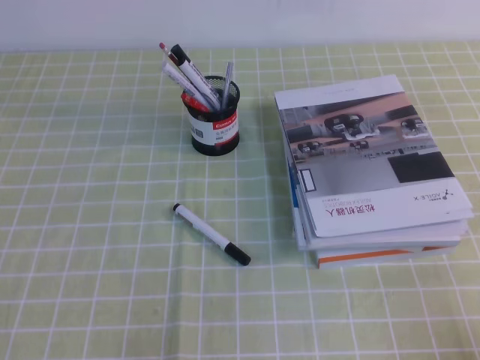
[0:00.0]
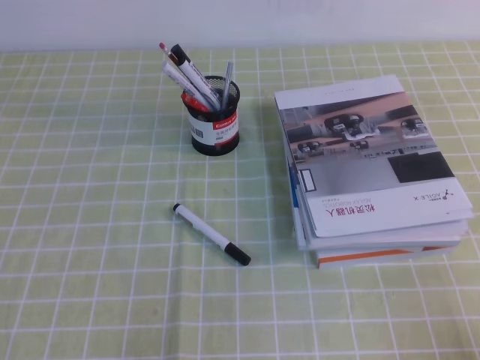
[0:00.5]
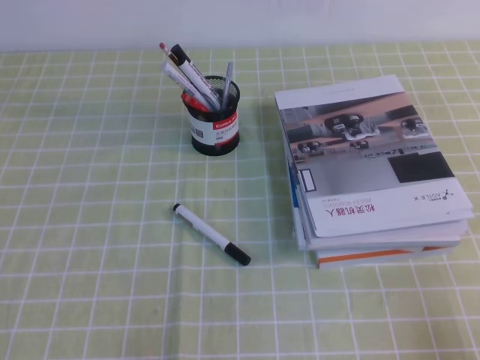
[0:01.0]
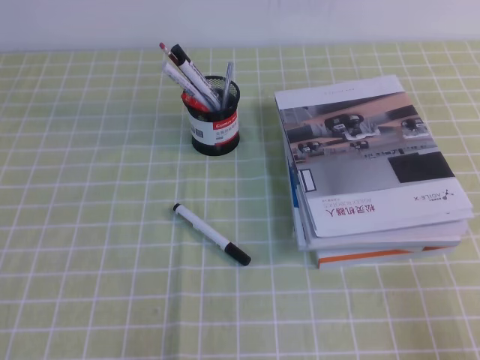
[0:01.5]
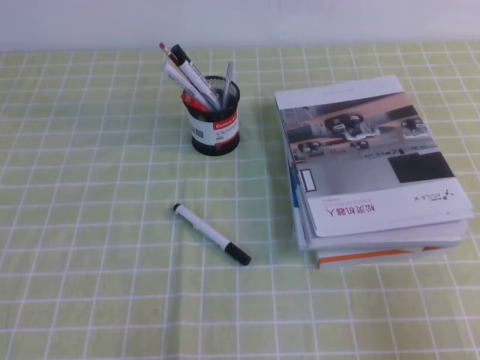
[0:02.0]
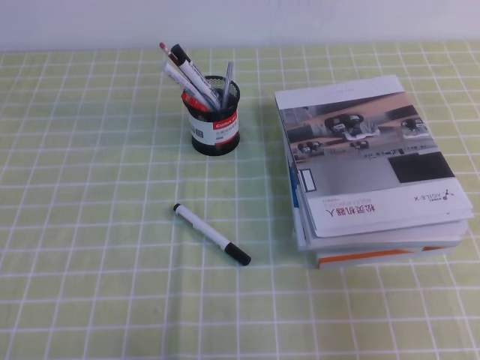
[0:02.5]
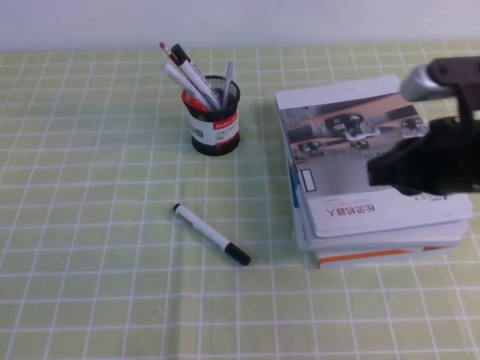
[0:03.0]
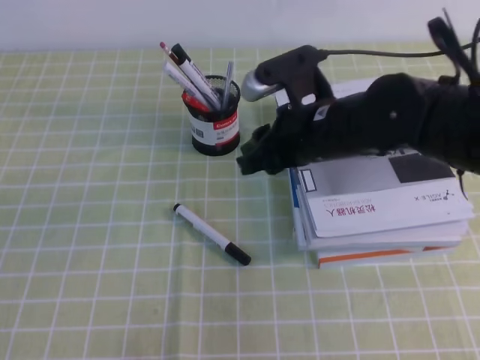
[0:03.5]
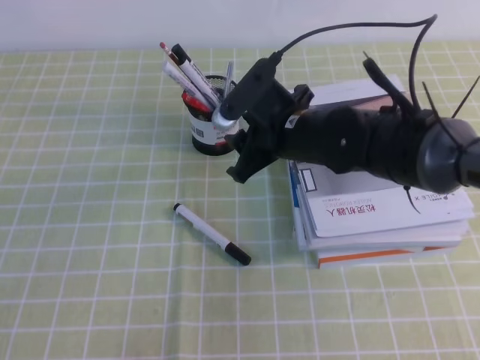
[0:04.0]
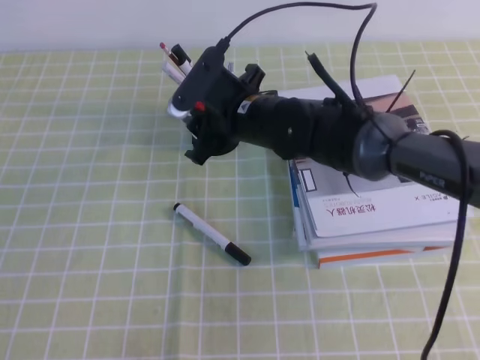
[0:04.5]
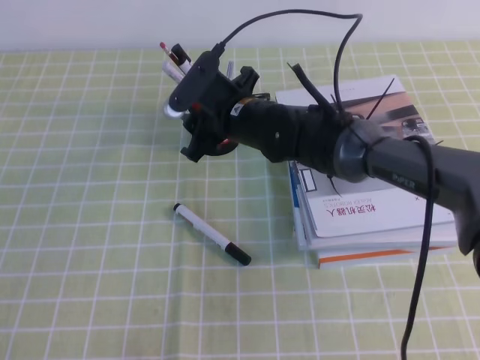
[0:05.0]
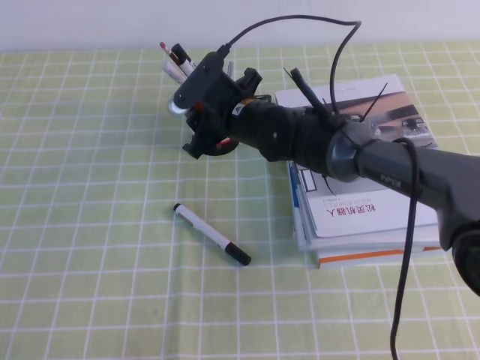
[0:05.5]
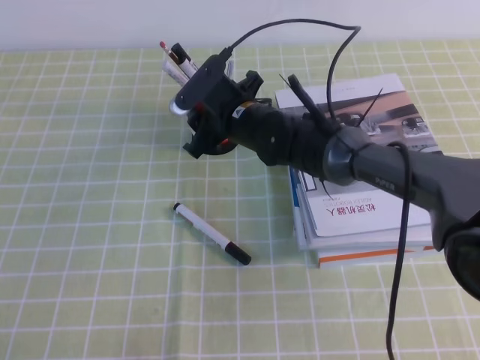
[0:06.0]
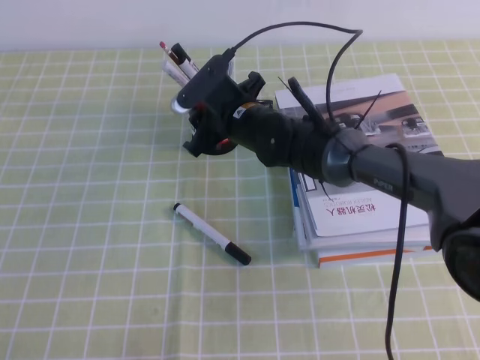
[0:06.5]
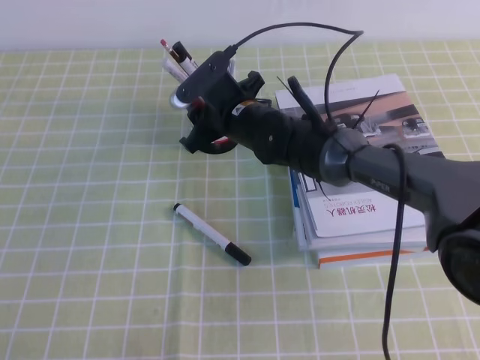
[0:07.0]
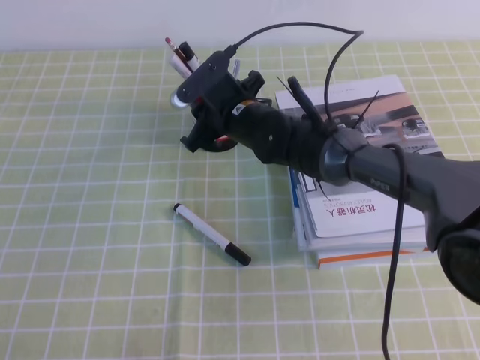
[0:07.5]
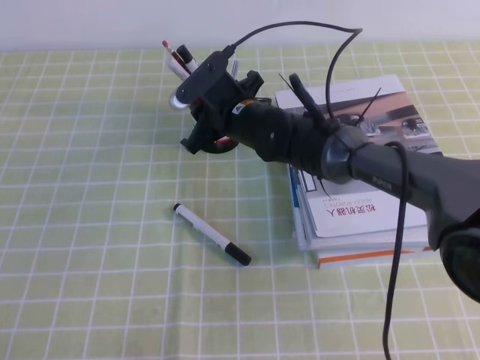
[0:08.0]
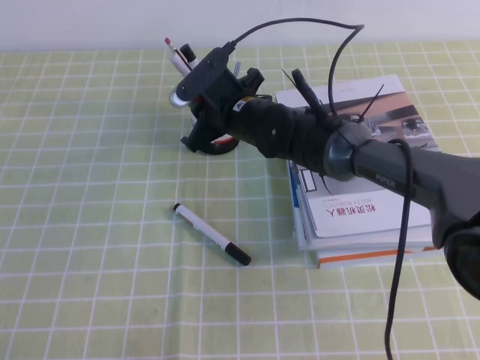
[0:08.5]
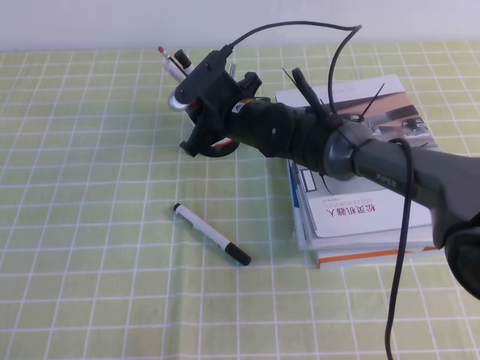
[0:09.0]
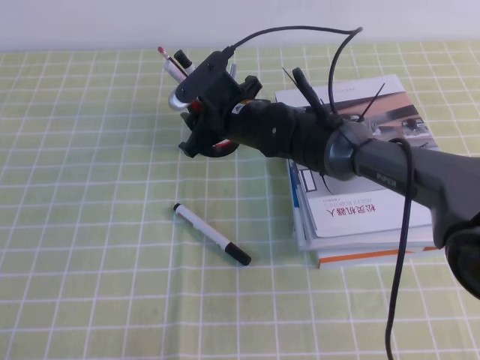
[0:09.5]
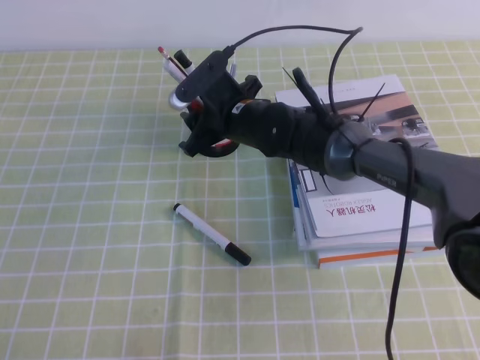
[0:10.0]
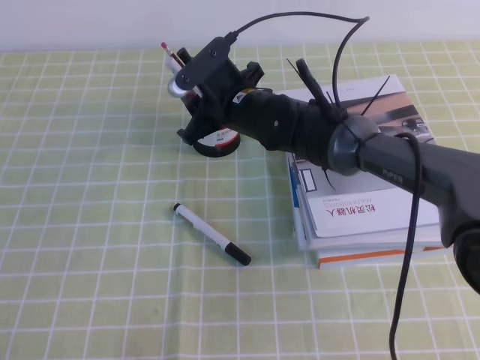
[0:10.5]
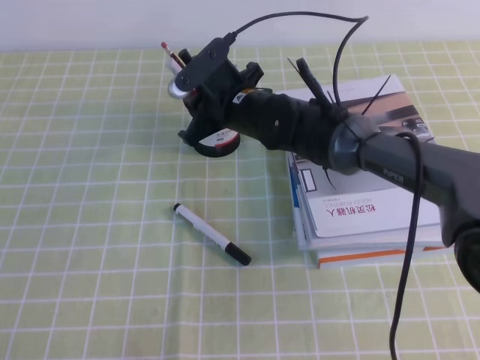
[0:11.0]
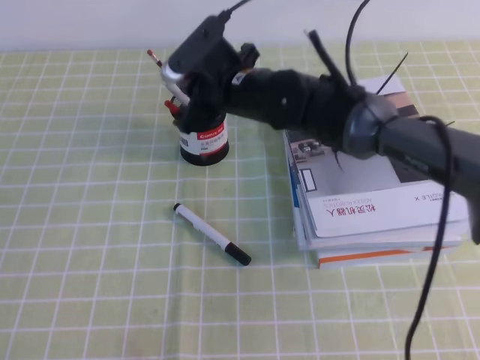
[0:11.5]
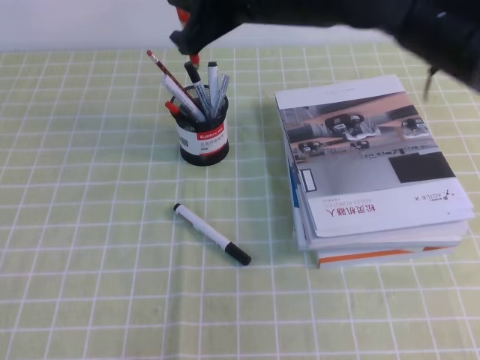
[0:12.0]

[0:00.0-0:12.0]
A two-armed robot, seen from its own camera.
0:00.0 to 0:02.0: The right gripper shifts some 5 cm upward.
0:02.0 to 0:04.0: The right gripper goes roughly 40 cm forward and to the left, and opens its fingers.
0:04.0 to 0:06.0: The right gripper moves forward and to the left, some 10 cm.
0:06.0 to 0:08.0: The right gripper closes up.
0:08.0 to 0:10.0: The right gripper opens its fingers.
0:10.0 to 0:12.0: The right gripper heads upward and backward, covering roughly 20 cm, and closes its fingers.

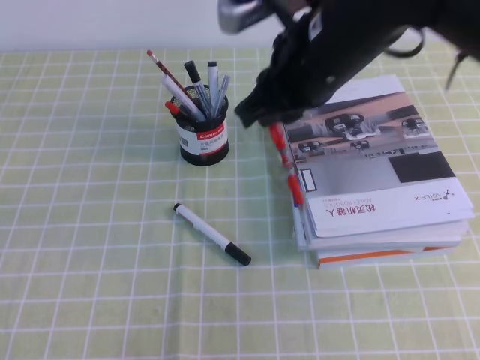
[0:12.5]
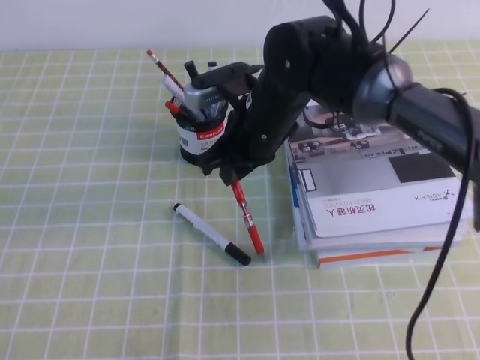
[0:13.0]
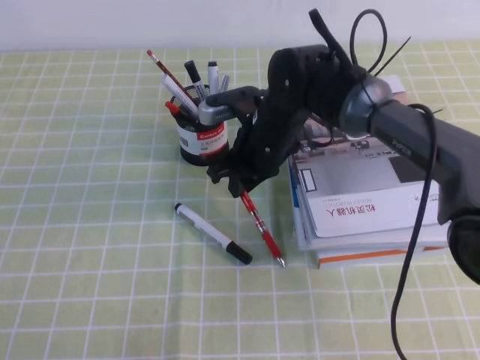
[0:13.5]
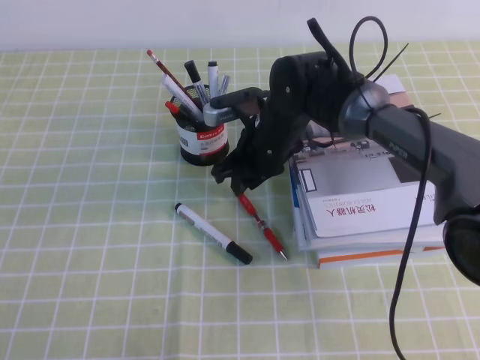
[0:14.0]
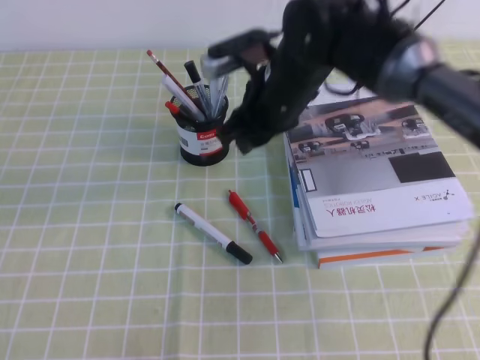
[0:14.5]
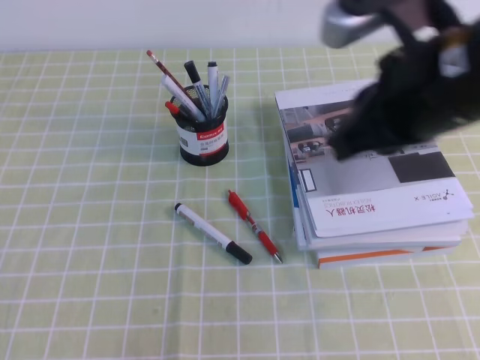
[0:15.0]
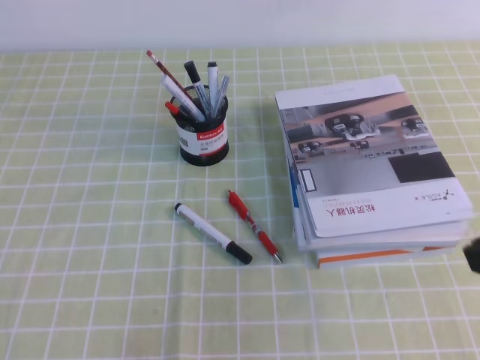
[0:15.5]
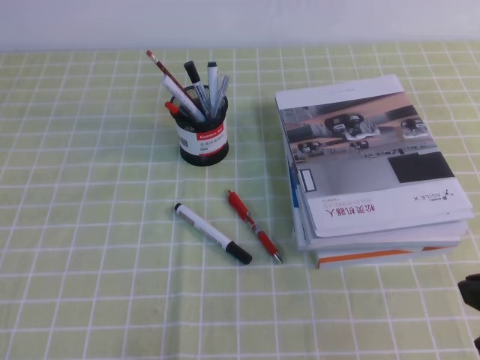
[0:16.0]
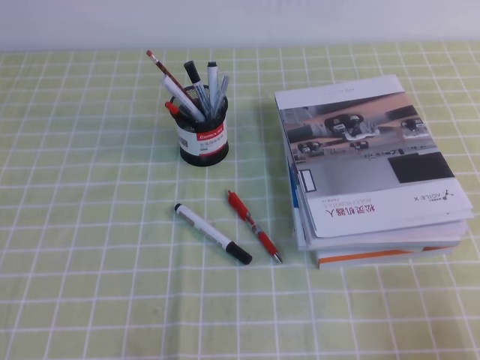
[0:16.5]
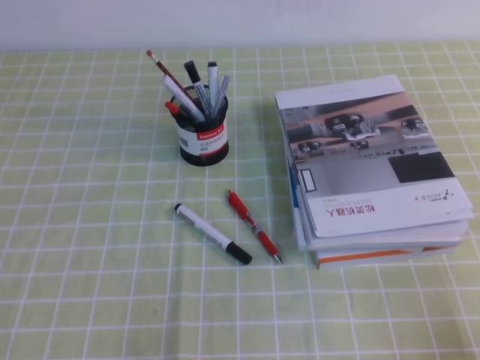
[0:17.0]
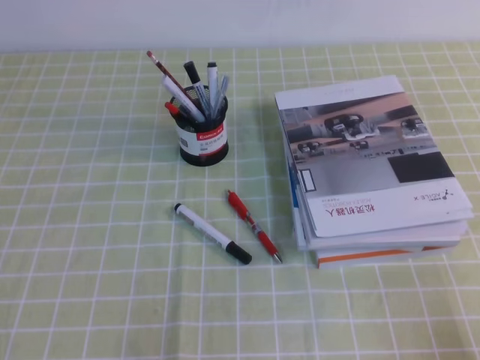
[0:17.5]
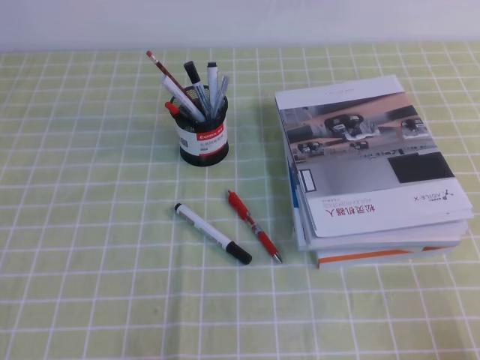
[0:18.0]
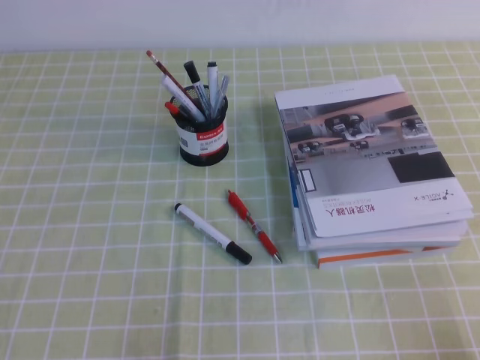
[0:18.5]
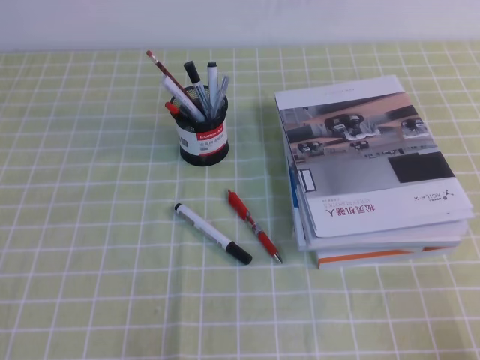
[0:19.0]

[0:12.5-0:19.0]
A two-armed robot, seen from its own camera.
Step, 0:12.5 to 0:19.0: Pick up the pen from the pen holder.
0:12.5 to 0:14.5: The right gripper shifts about 10 cm downward and forward, and opens up.
0:14.5 to 0:17.0: The right gripper shifts roughly 40 cm backward and to the right, and closes its fingers.

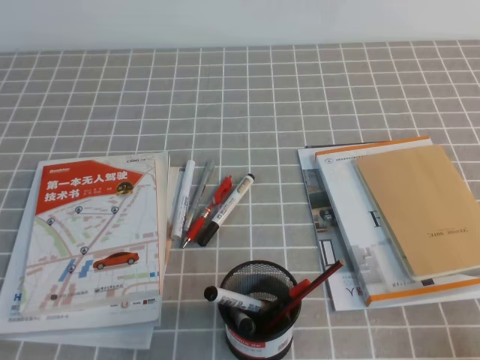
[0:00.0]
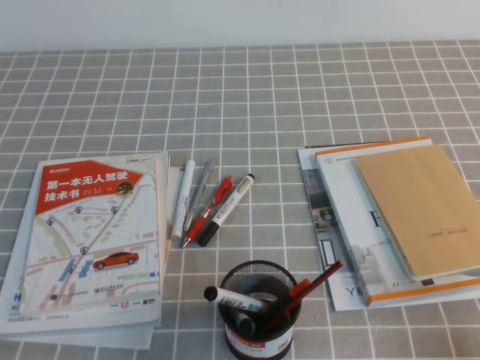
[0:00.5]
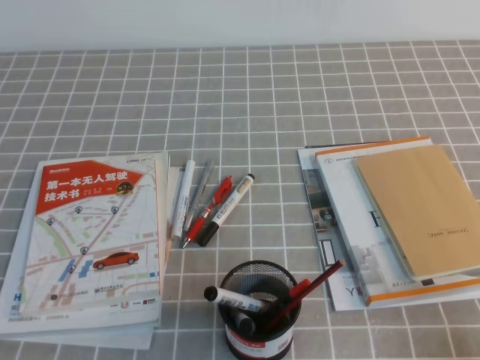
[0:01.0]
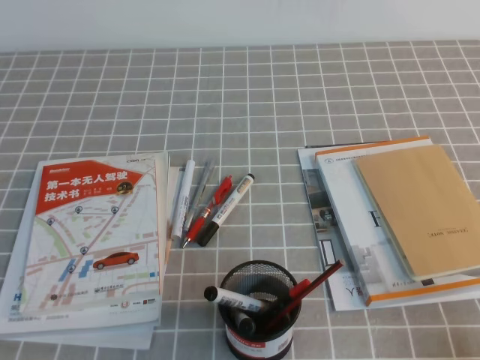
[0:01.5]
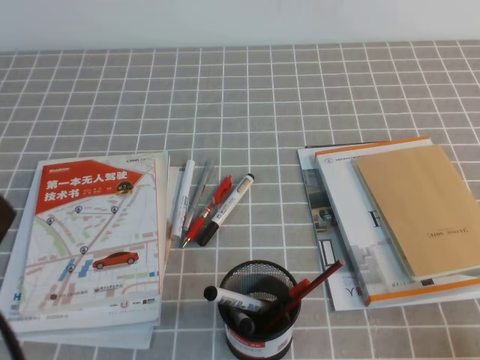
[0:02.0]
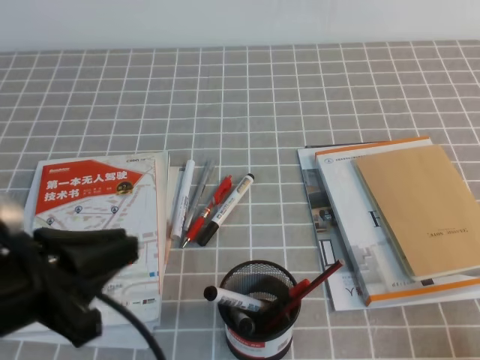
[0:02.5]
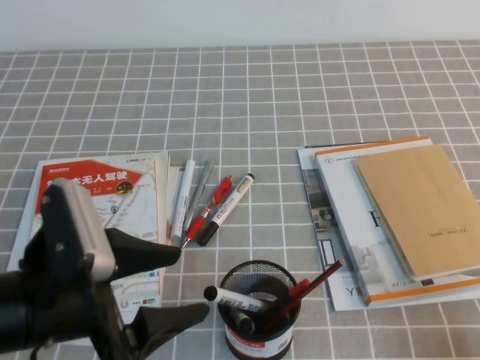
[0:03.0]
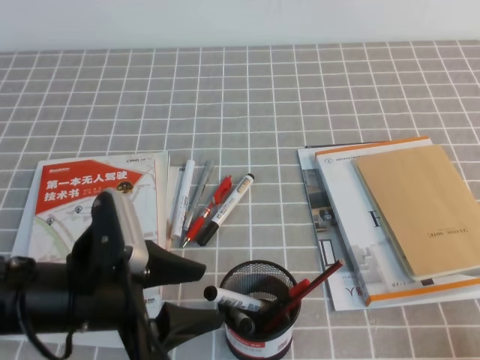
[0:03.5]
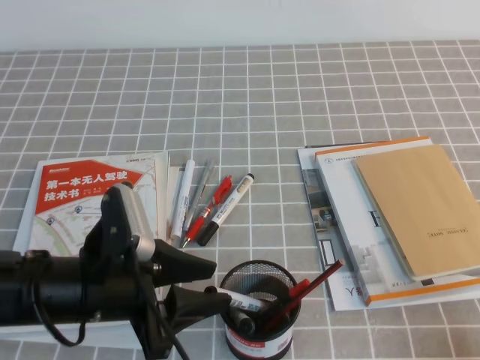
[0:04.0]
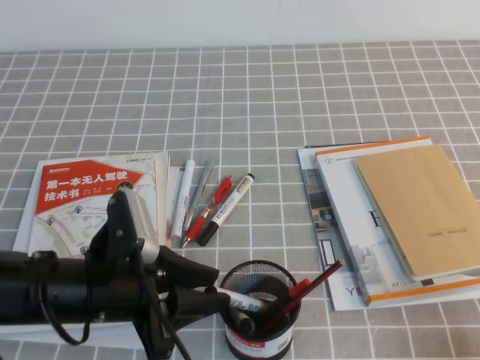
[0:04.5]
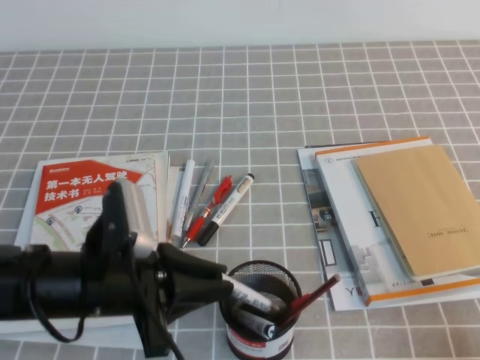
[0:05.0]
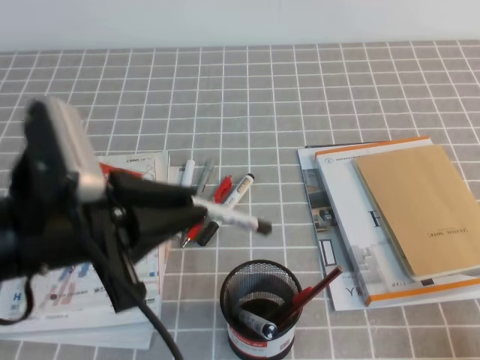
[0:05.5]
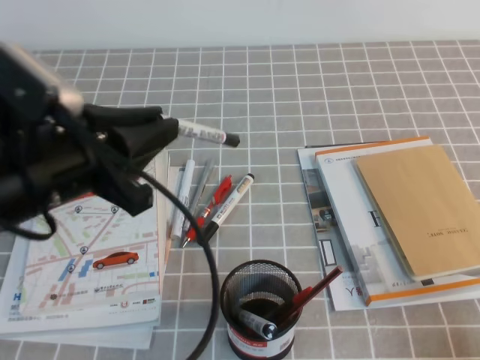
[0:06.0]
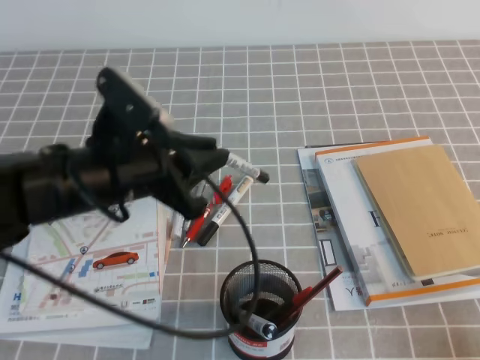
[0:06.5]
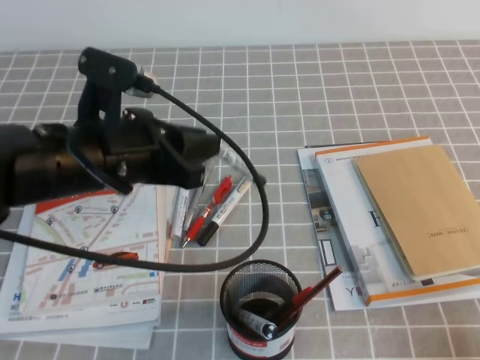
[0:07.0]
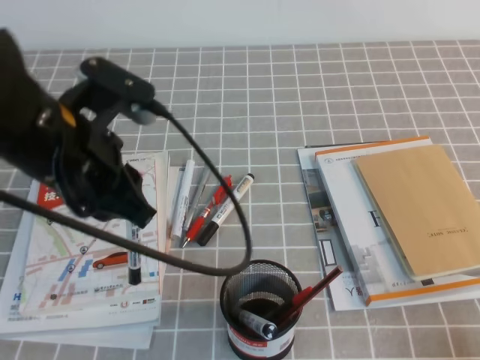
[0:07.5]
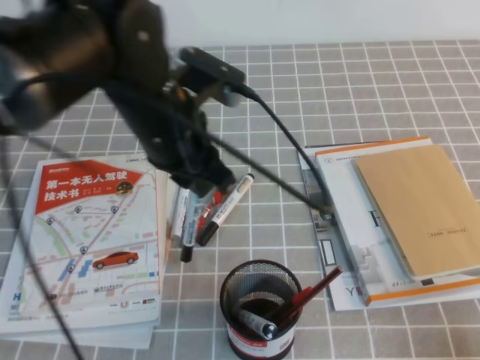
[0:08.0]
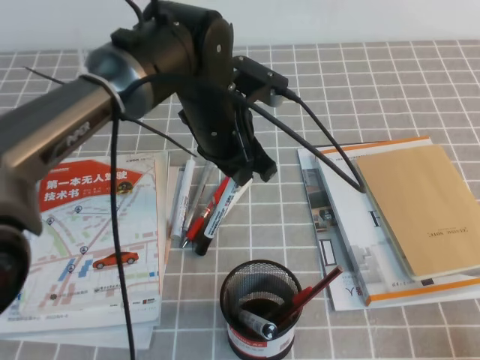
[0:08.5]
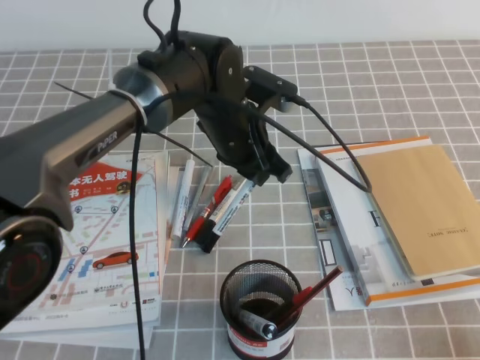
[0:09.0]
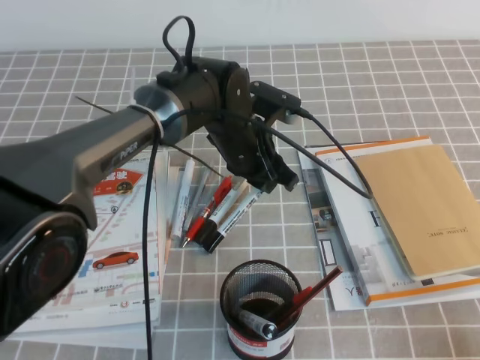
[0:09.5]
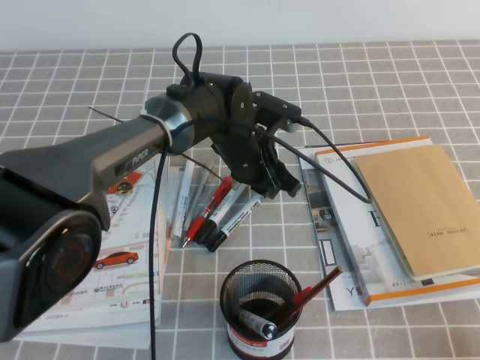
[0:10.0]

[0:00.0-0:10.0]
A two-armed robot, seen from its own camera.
0:00.0 to 0:02.0: The left gripper heads upward, covering roughly 15 cm.
0:02.0 to 0:04.0: The left gripper goes some 15 cm forward, downward and to the right, and opens up.
0:04.0 to 0:06.0: The left gripper moves upward, approximately 10 cm, and closes.
0:06.0 to 0:08.0: The left gripper goes approximately 15 cm forward and to the right.
0:08.0 to 0:10.0: The left gripper goes about 20 cm downward, forward and to the right.
